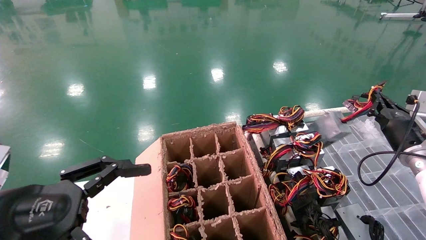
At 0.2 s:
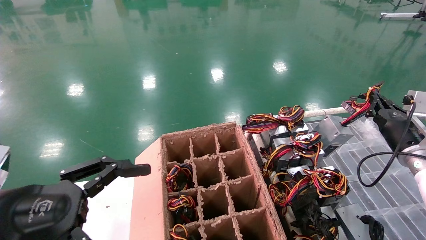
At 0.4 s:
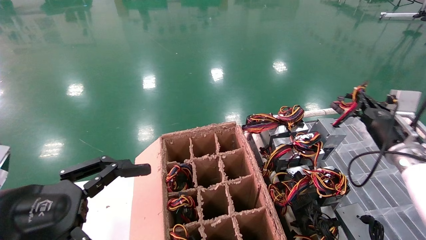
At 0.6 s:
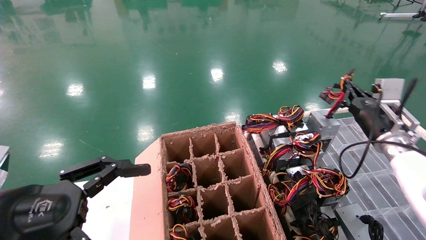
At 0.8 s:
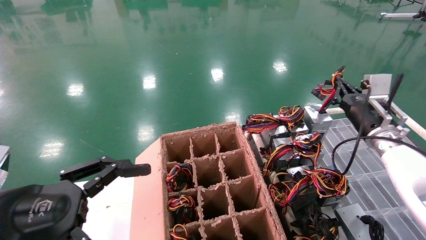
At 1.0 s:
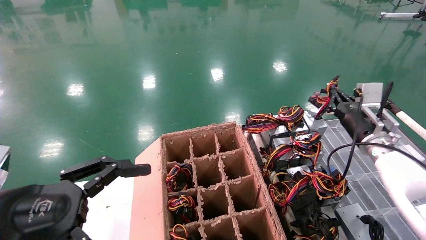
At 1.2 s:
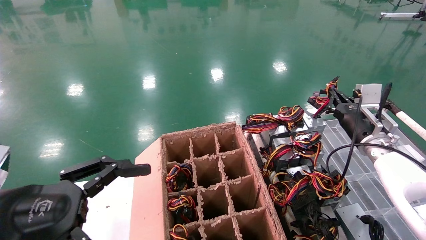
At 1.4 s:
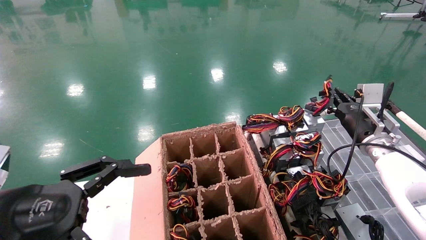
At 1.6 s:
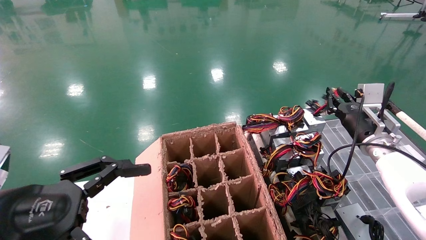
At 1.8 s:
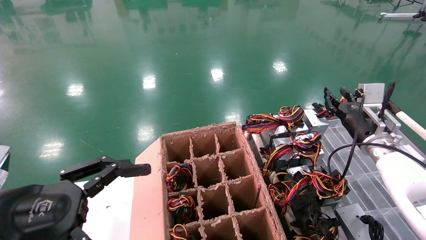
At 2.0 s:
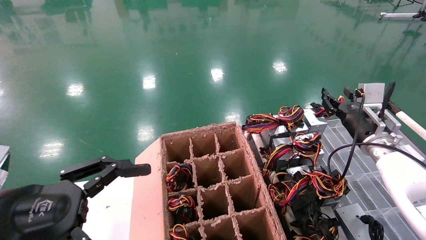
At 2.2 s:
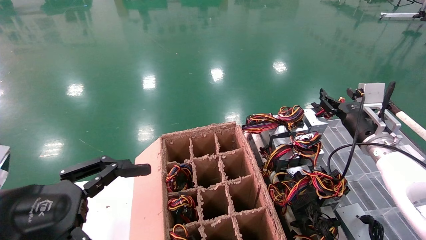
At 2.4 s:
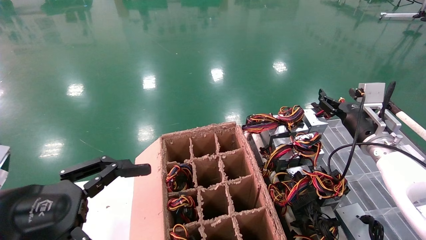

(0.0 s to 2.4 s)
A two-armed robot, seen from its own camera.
0.0 s - 1.2 s: The right gripper moves to the left, roughly 5 cm.
1.2 s - 2.4 s: The right gripper opens its fingers.

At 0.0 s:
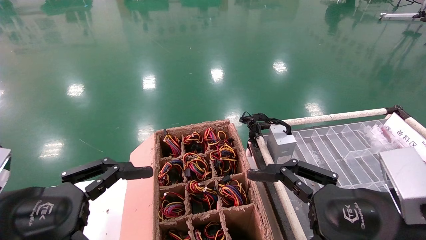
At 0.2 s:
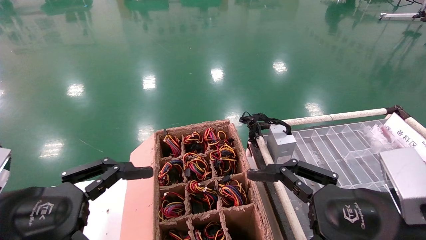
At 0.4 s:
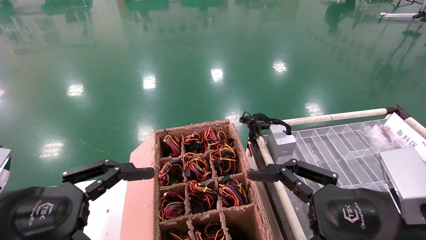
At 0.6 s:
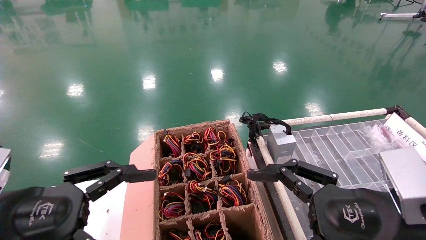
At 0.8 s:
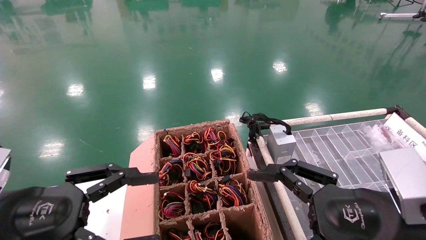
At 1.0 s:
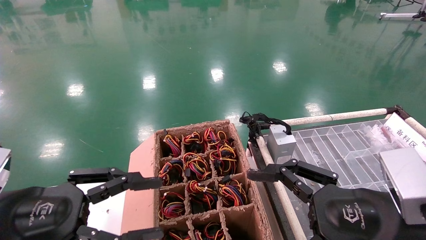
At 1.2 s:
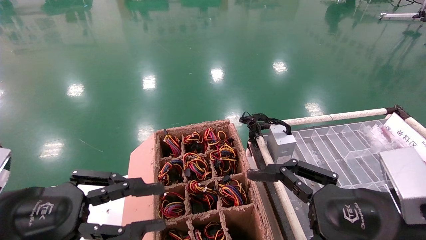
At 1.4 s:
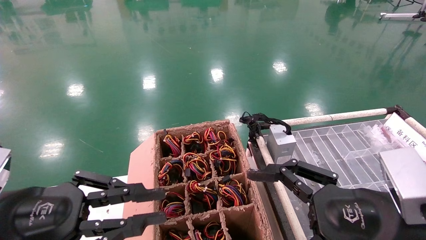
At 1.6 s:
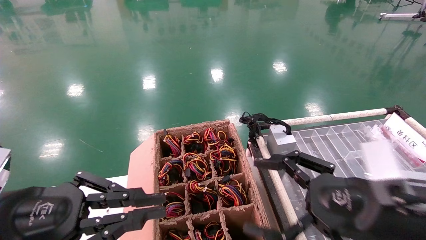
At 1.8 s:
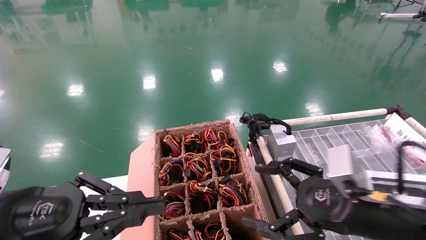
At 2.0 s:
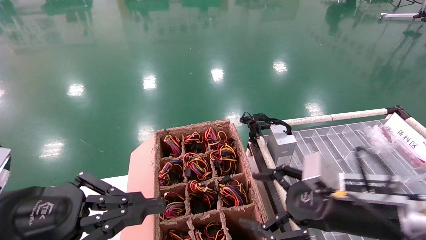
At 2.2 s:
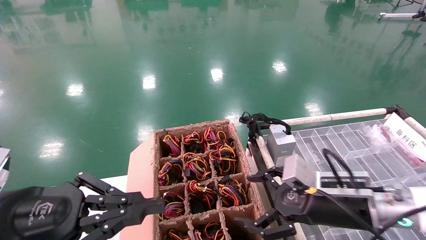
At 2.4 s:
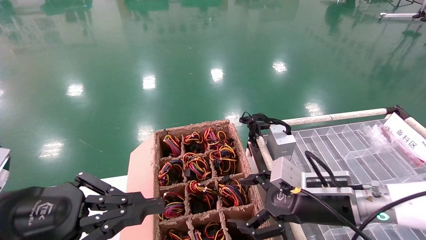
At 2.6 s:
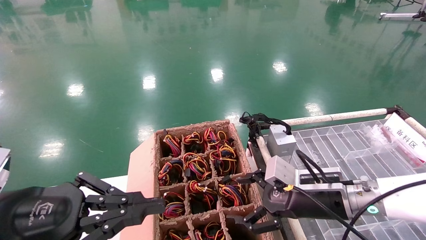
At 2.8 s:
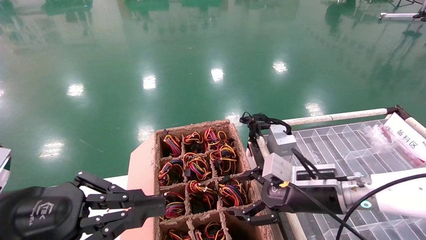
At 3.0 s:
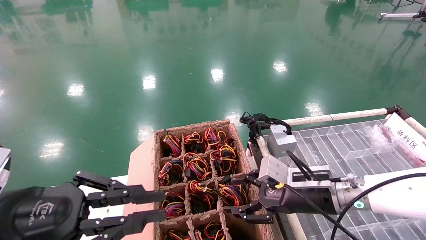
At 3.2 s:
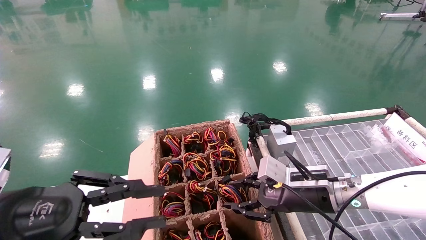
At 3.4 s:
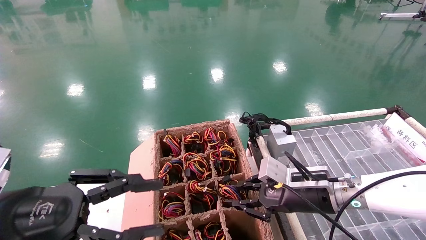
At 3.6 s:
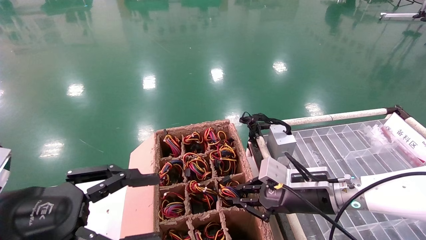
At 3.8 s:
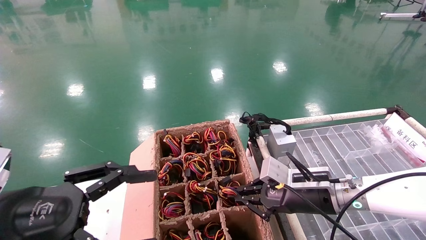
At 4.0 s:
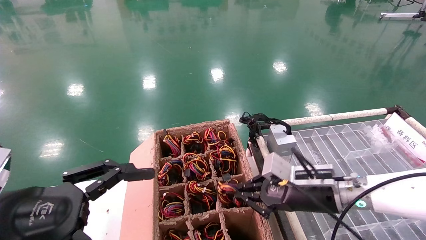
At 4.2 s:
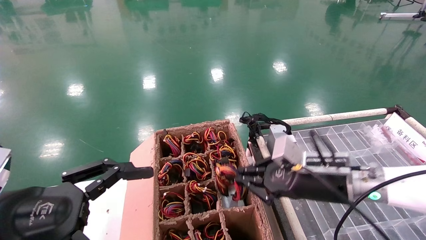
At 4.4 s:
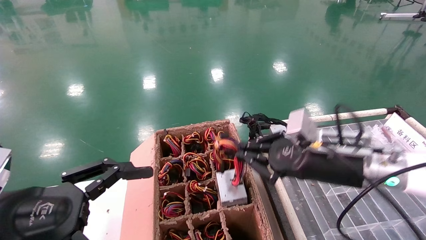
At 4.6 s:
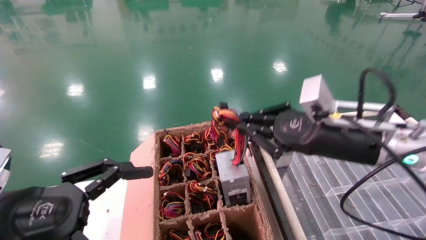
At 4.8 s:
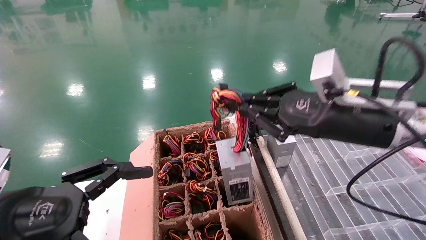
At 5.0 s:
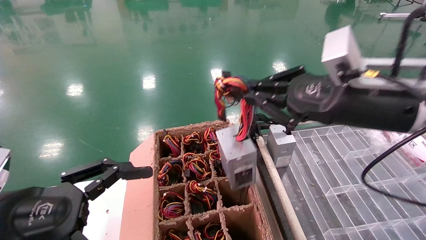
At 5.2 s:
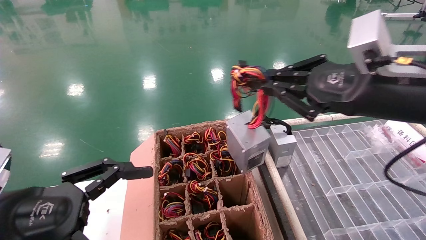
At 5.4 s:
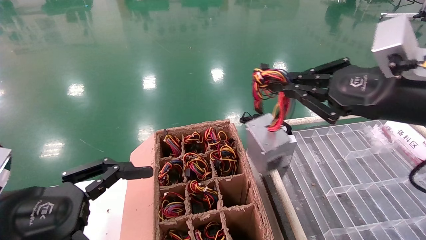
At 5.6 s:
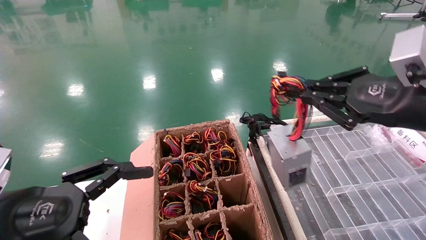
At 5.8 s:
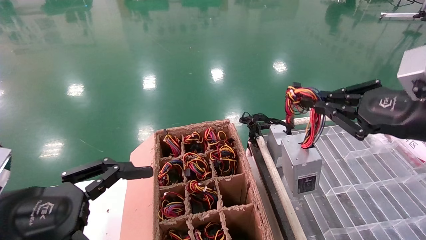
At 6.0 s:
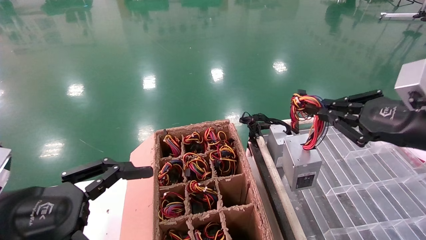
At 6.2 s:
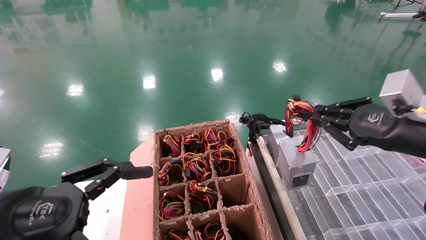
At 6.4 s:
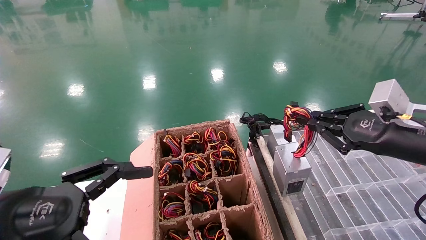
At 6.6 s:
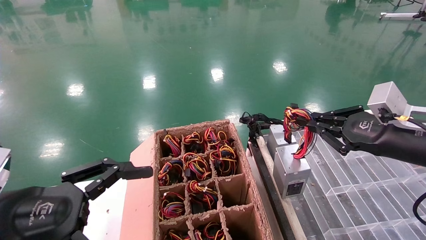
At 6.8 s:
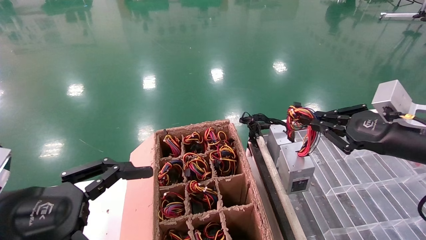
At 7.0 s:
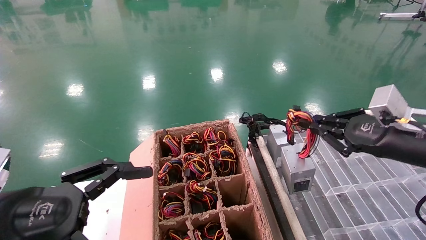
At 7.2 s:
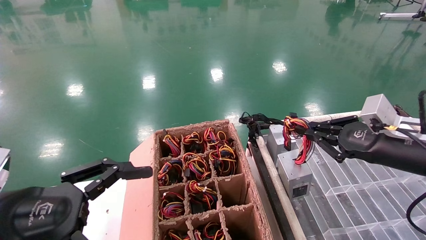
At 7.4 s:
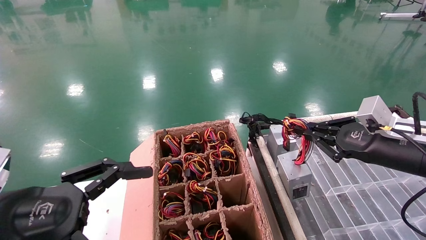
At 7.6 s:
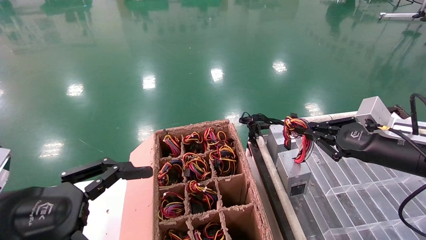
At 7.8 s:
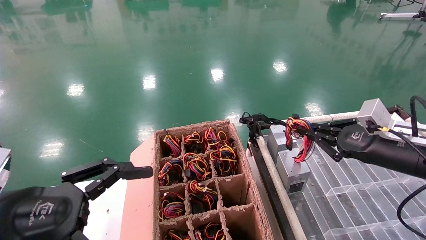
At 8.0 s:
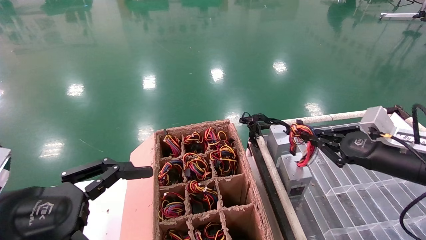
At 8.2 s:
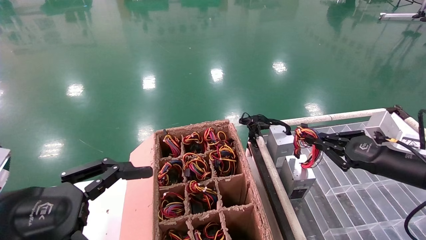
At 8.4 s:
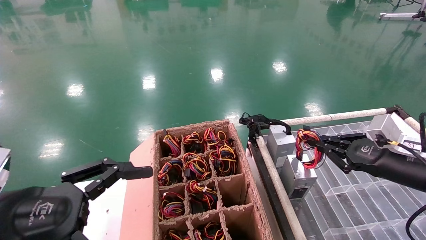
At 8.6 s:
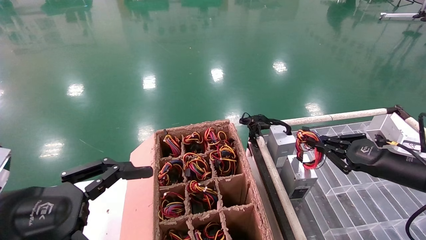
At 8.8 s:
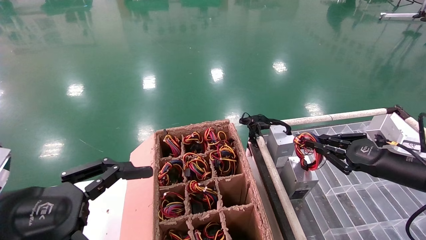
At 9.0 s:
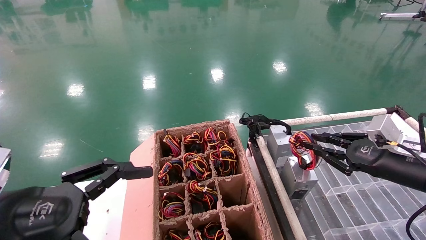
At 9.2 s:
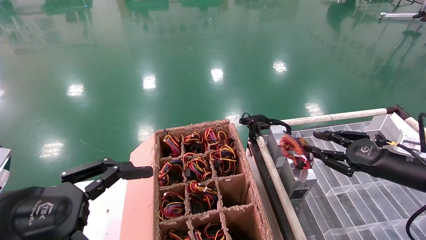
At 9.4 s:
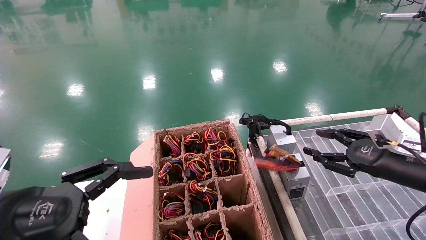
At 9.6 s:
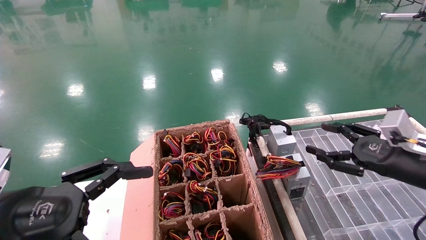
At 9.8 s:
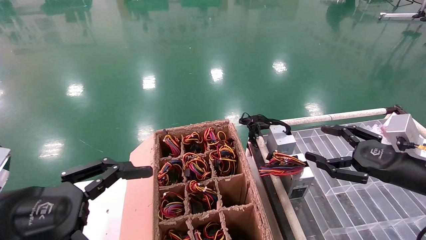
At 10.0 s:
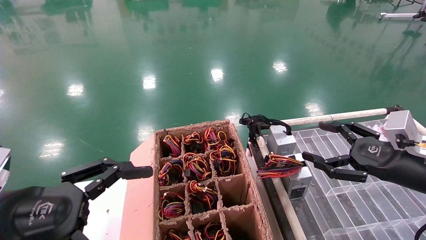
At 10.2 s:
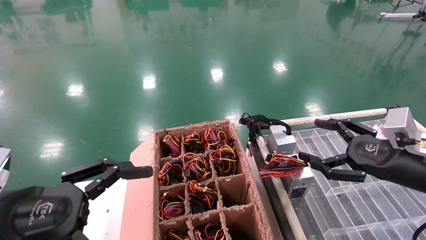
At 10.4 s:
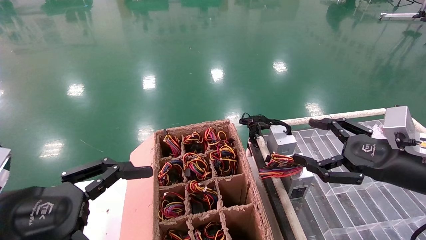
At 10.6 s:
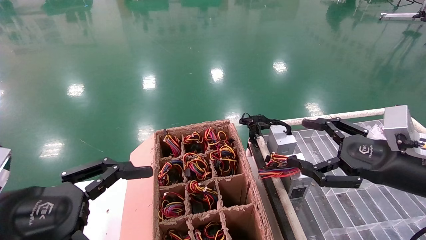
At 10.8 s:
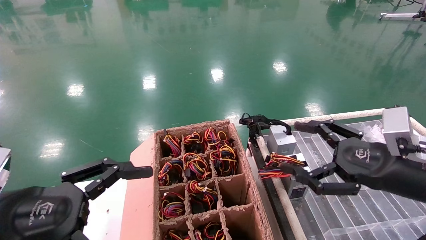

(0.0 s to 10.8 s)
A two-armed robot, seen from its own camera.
Step, 2.0 s - 4.2 s: Grab and lift the power supply from the large box.
Step, 4.4 s - 9.0 s: Place the power supply on the operating table.
0.0 s - 1.6 s: The left gripper closes.
1.6 s - 3.0 s: The right gripper shifts roughly 15 cm forward.
3.0 s - 4.6 s: The left gripper opens up, while the right gripper goes about 10 cm upward, and closes.
4.6 s - 6.2 s: The right gripper travels to the right by approximately 10 cm.
6.2 s - 7.8 s: The right gripper shifts about 10 cm forward and downward.
7.8 s - 9.2 s: The grippers stay close to where they were, moving slightly.
9.2 s - 10.8 s: The right gripper goes approximately 10 cm backward and to the left, and opens.
